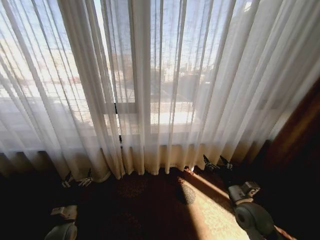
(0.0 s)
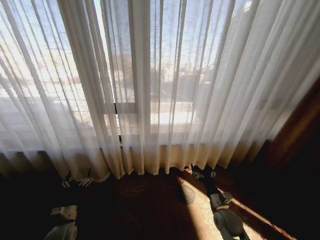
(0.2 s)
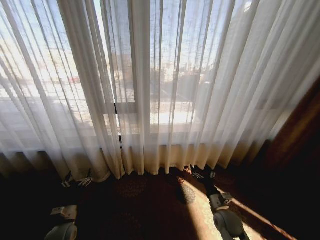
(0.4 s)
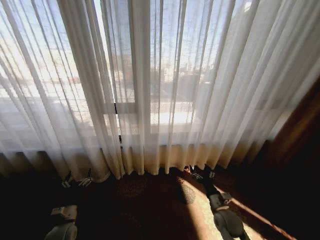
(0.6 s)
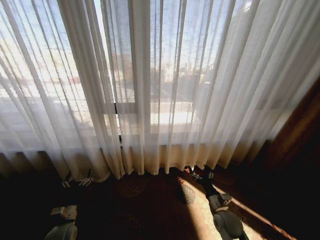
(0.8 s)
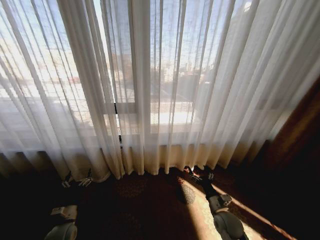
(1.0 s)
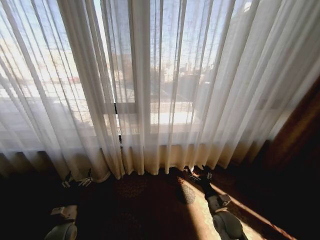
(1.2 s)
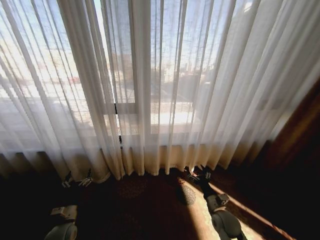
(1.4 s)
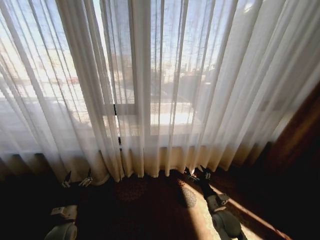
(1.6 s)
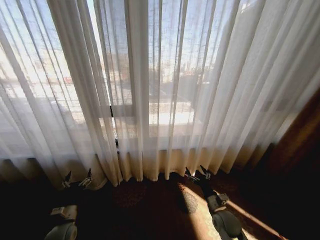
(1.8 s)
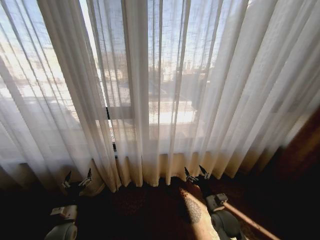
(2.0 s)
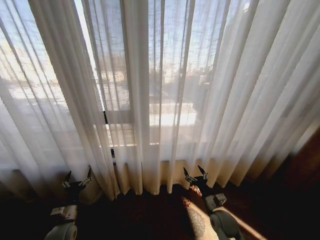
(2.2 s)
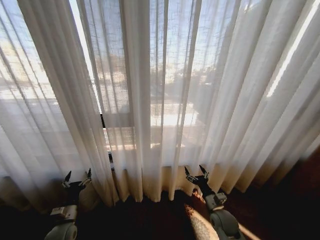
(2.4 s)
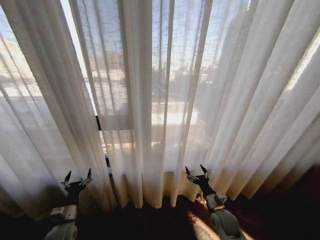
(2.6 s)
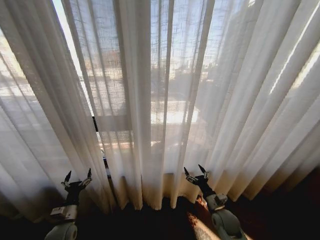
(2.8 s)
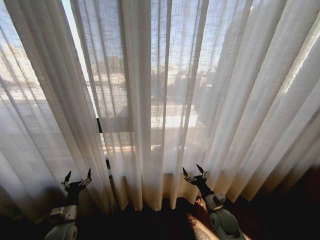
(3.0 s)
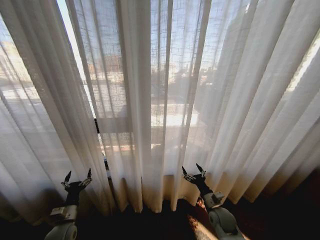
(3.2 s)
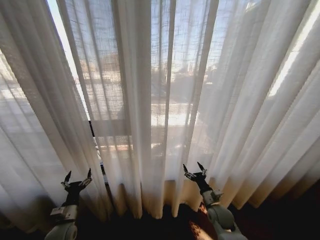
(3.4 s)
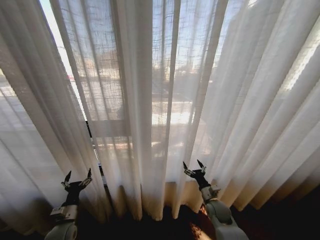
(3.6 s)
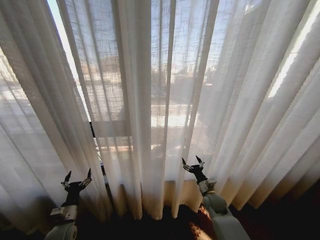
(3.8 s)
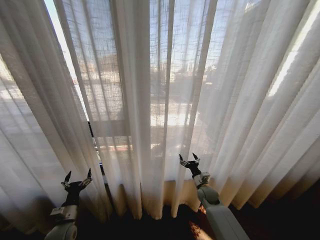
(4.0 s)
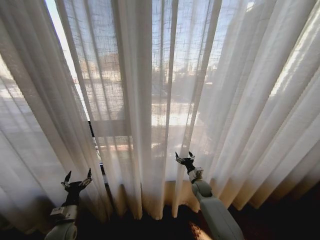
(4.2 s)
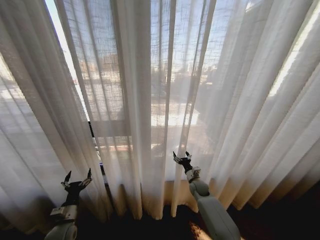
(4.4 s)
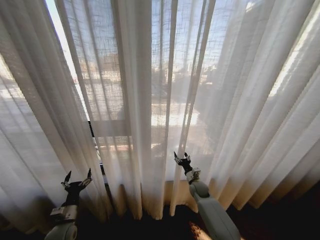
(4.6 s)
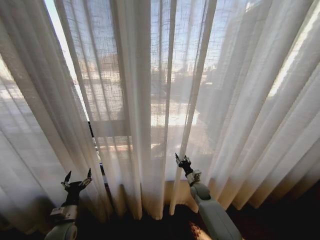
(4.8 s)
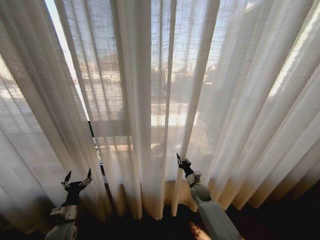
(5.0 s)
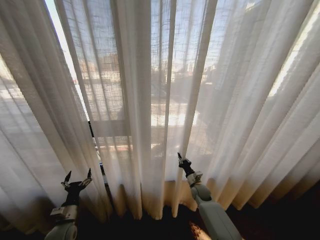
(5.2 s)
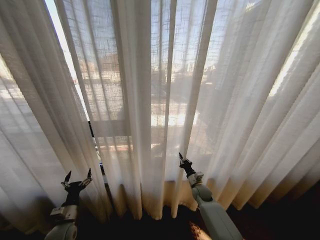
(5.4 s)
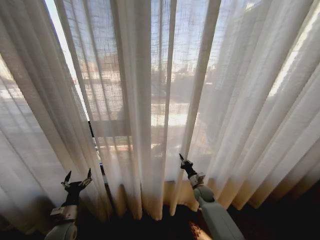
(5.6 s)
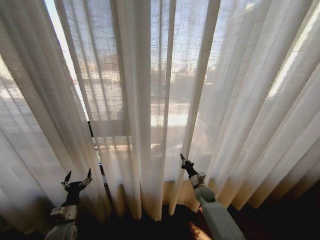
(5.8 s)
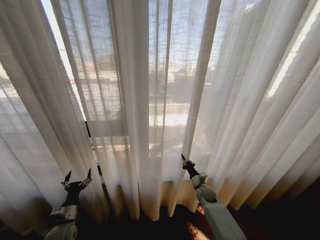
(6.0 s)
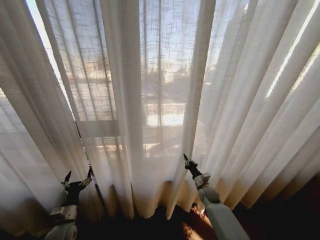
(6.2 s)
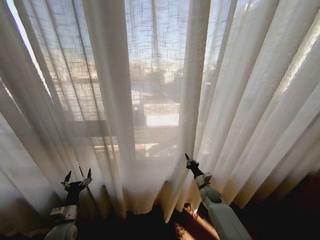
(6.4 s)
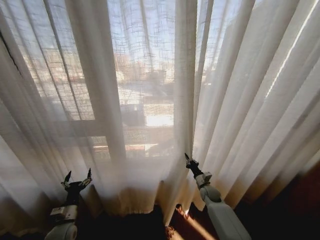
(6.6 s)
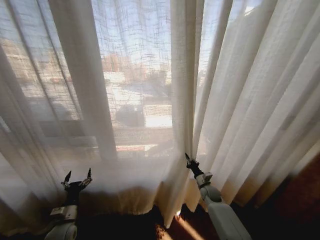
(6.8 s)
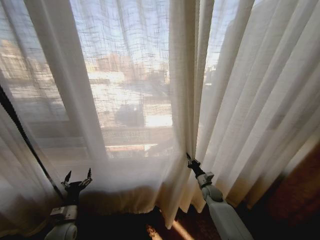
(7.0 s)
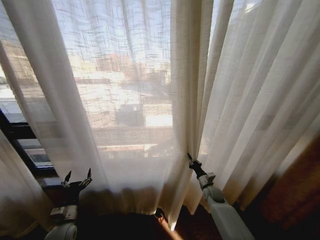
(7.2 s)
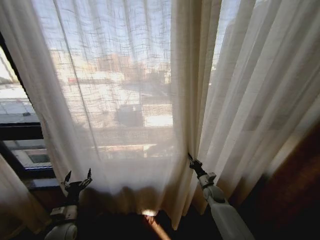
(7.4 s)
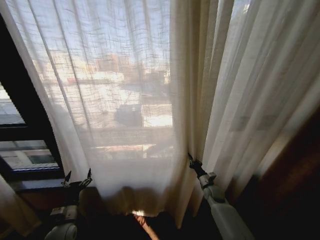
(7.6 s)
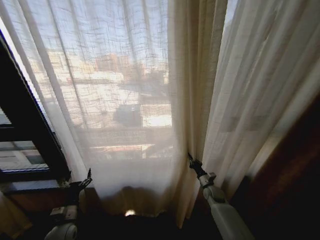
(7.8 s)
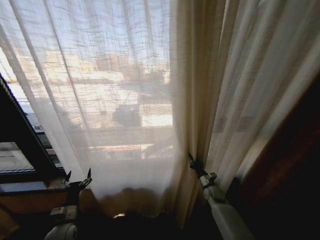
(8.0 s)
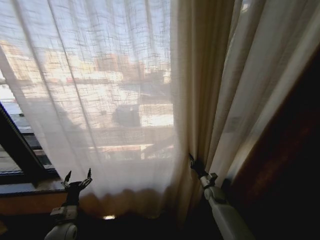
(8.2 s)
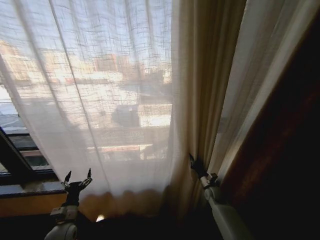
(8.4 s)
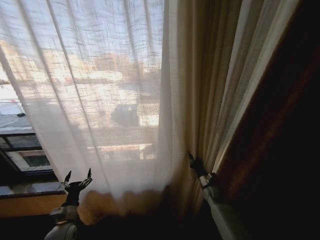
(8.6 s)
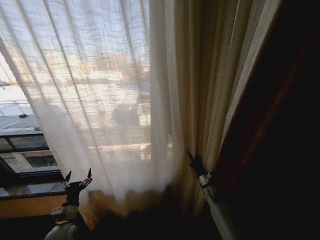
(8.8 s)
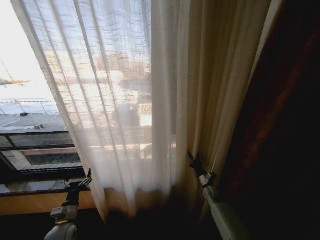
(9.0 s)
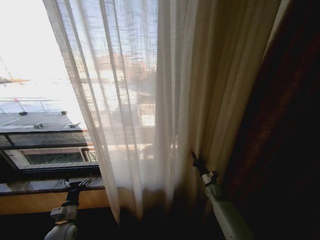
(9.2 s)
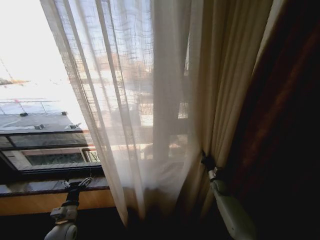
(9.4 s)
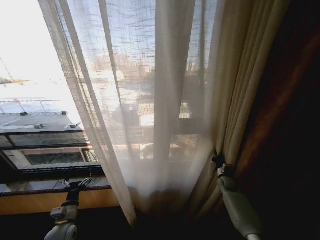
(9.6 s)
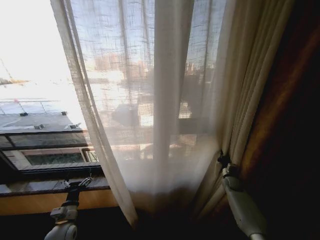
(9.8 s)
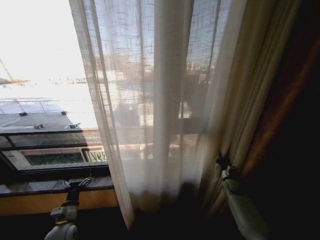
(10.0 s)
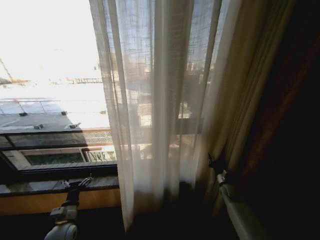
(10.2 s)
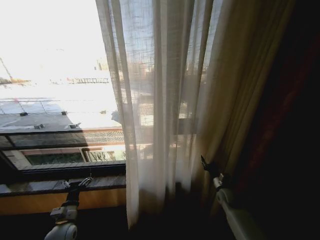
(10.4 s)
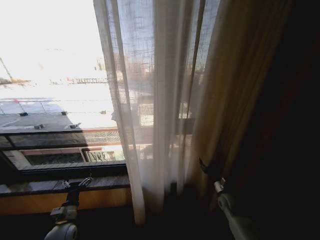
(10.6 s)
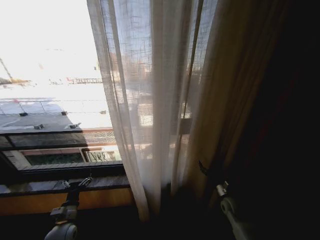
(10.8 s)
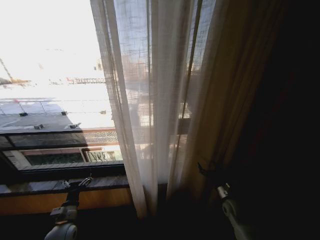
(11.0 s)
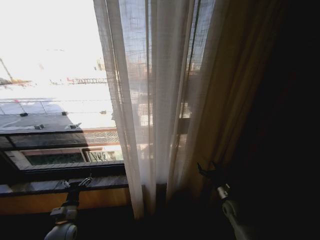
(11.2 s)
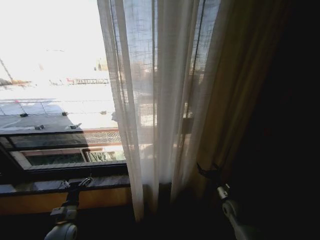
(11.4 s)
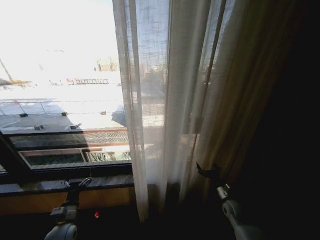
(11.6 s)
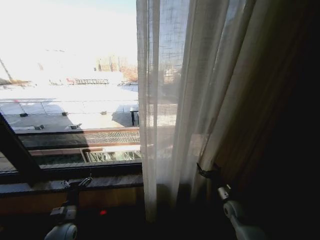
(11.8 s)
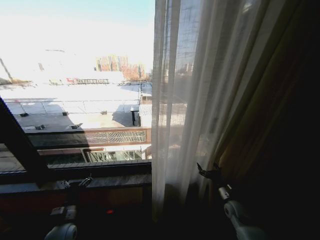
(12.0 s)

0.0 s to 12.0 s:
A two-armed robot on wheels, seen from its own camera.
Task of the whole recording: Open the curtains by pulling them apart, changing their state from closed to fully open.
3.0 to 4.4 s: The right gripper moves forward, some 15 cm.
4.4 to 6.0 s: The right gripper closes its fingers.
9.0 to 10.4 s: The right gripper heads to the right, covering roughly 5 cm, and opens.
10.4 to 12.0 s: The right gripper is displaced backward by about 5 cm, and opens its fingers.

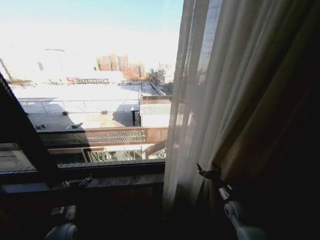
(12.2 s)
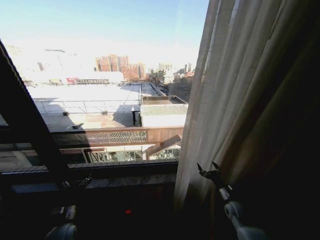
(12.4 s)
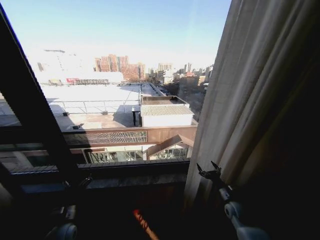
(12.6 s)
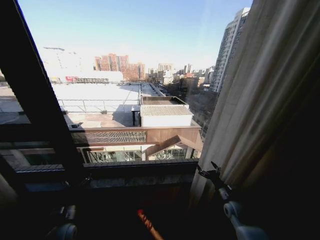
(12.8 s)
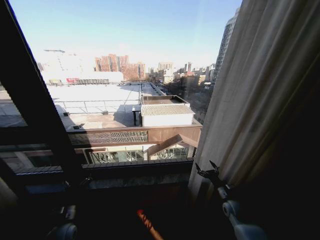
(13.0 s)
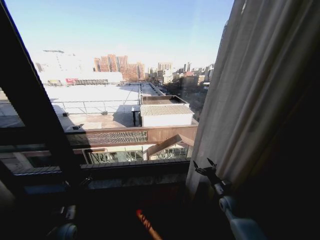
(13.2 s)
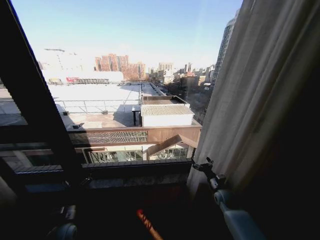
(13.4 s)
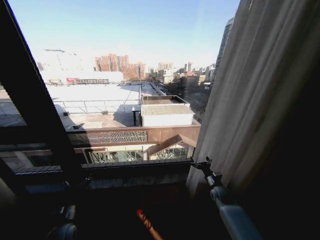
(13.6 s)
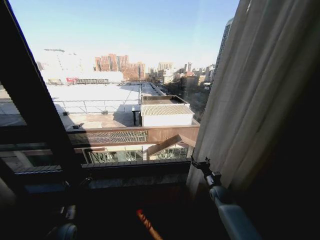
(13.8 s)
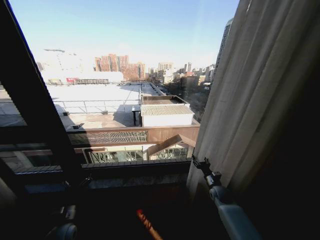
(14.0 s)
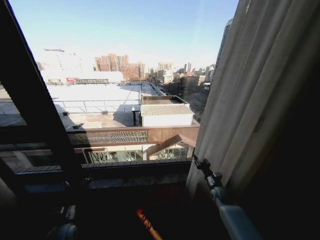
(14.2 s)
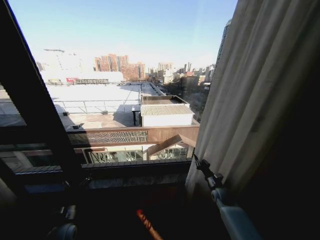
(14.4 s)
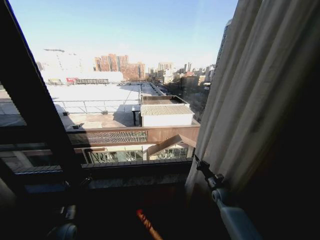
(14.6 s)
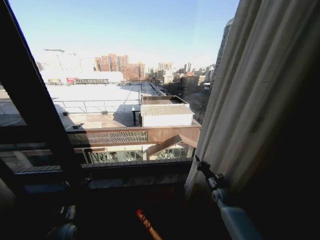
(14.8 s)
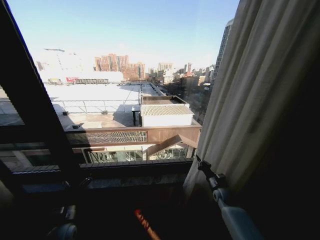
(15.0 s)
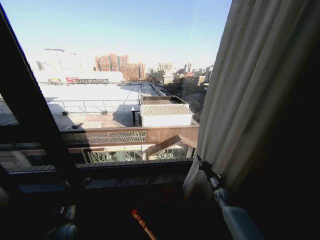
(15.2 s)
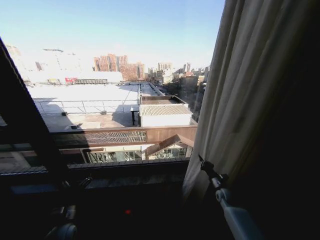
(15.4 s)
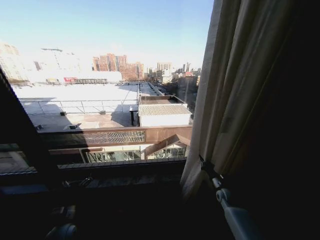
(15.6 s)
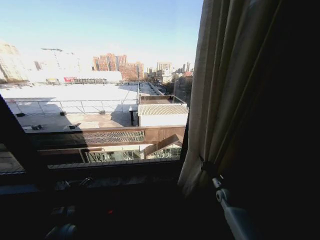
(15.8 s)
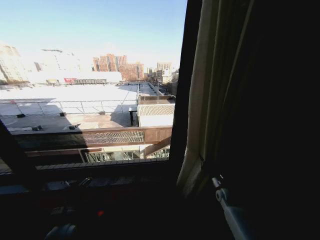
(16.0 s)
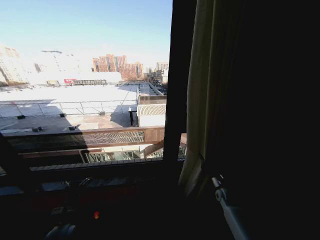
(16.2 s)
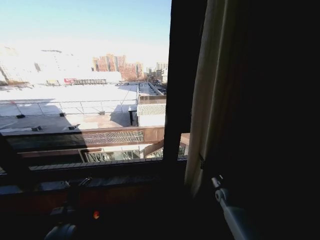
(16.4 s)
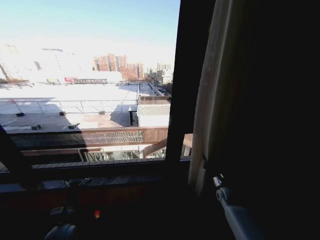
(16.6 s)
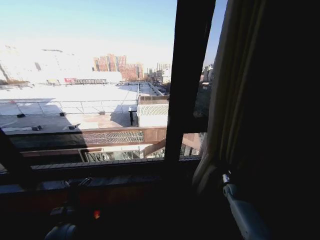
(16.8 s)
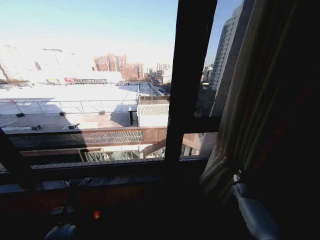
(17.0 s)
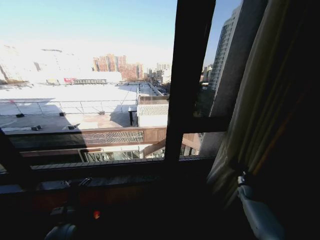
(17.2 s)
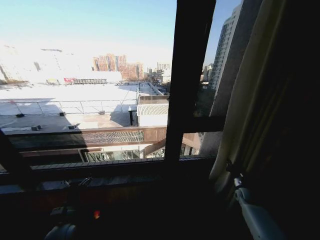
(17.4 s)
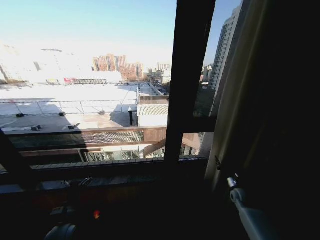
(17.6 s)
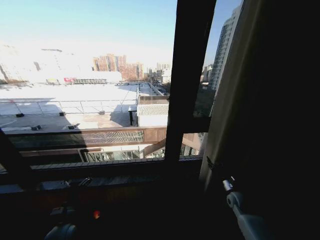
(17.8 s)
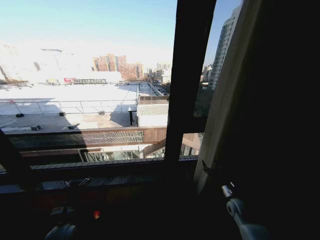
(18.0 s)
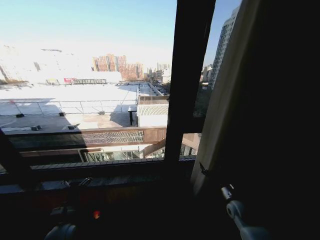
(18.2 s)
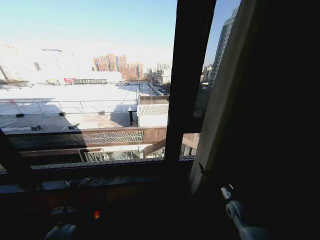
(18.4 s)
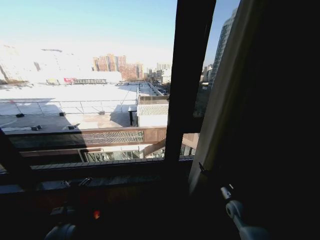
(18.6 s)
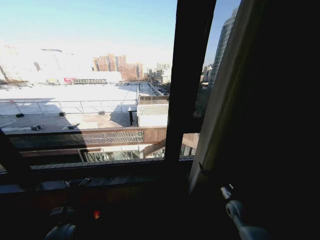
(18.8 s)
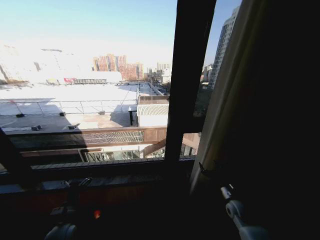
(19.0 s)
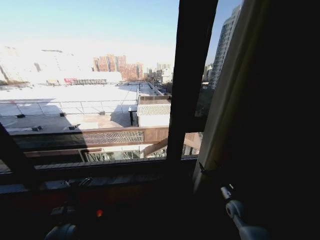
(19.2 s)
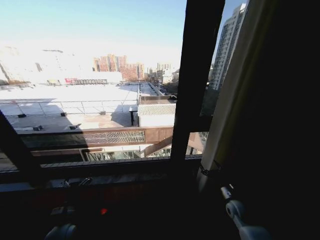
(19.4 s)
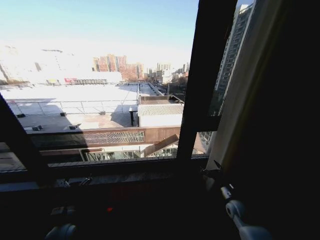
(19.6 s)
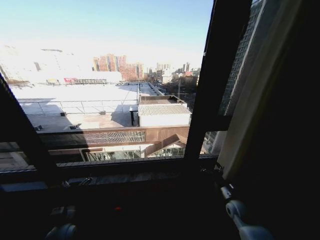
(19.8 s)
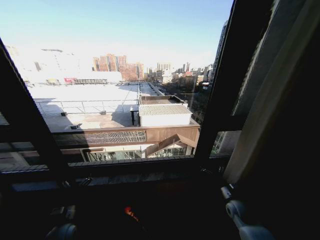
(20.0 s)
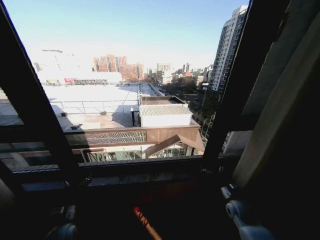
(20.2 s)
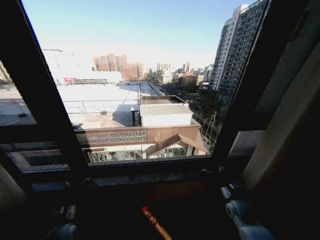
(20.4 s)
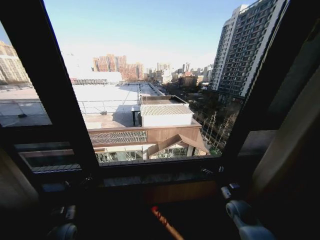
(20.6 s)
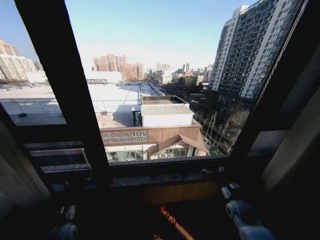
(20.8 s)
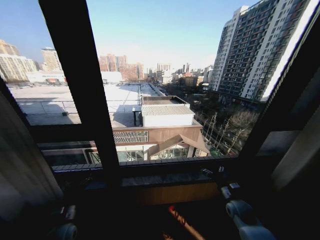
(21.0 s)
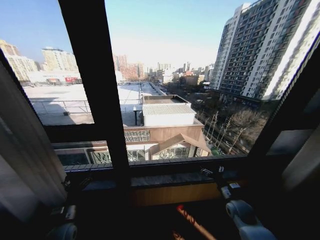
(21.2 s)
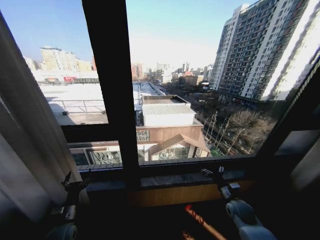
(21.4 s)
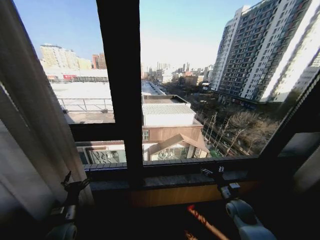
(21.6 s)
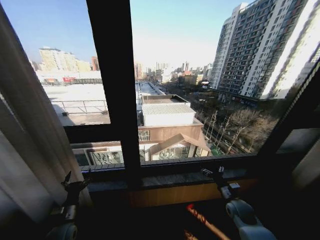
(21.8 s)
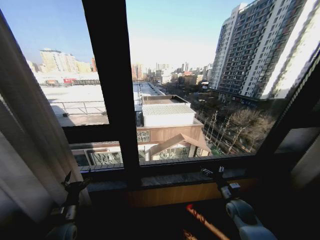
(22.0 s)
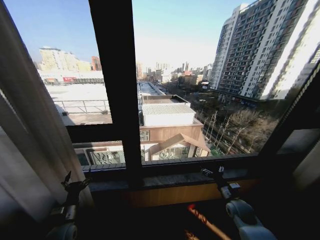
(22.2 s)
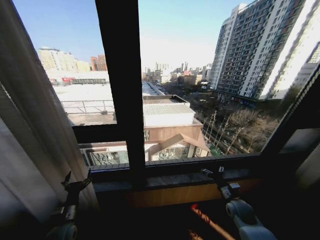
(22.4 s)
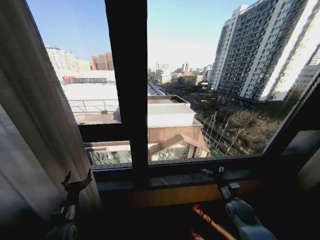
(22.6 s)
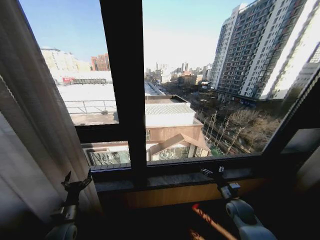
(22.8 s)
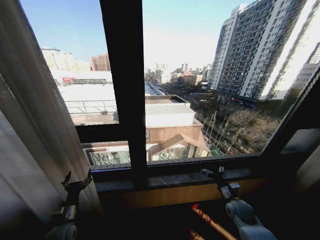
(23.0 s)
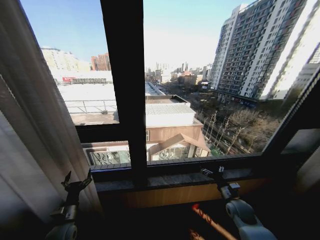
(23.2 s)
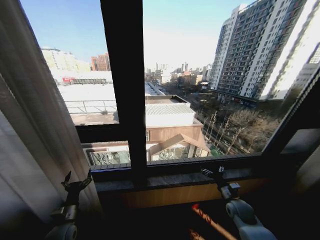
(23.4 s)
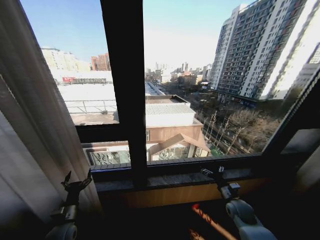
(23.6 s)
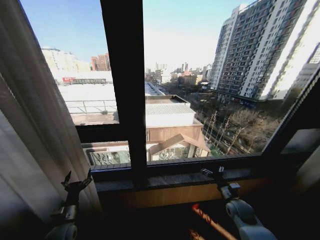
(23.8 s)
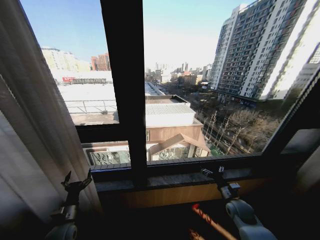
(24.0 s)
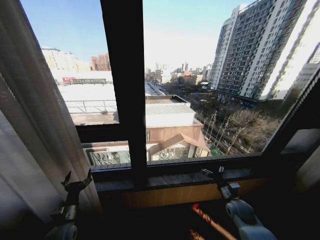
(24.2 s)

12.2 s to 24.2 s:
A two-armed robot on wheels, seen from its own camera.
Task of the whole recording: Open the curtains by pulling them apart, changing their state from closed to fully open.
12.2 to 13.8 s: The right gripper travels forward by approximately 10 cm.
13.8 to 15.2 s: The right gripper closes up.
16.6 to 18.2 s: The right gripper is displaced backward by approximately 10 cm, reaches approximately 15 cm to the right, then returns, and opens.
22.6 to 24.2 s: The two grippers keep their place.
